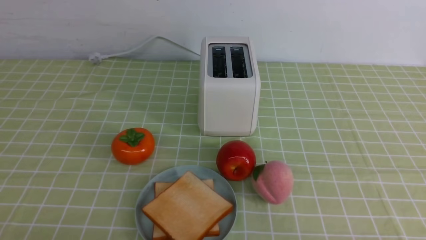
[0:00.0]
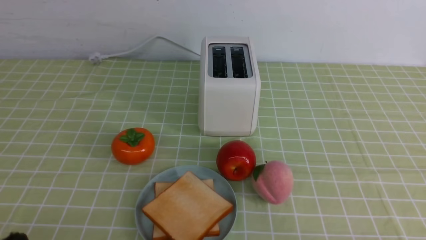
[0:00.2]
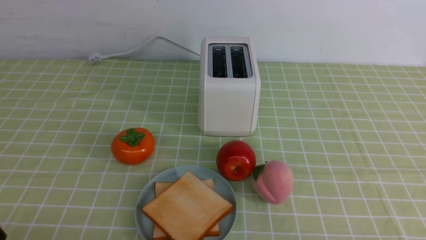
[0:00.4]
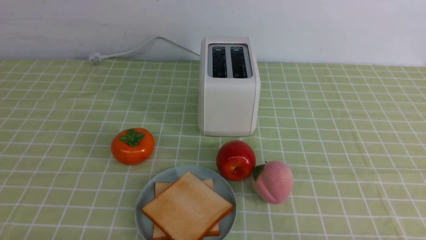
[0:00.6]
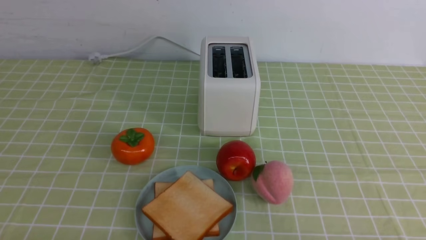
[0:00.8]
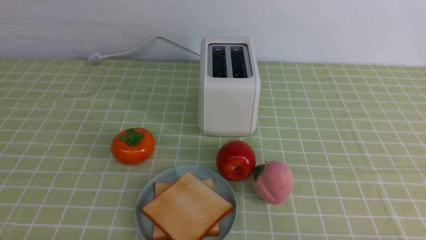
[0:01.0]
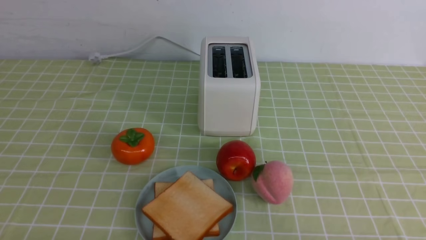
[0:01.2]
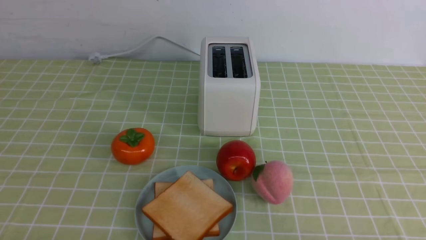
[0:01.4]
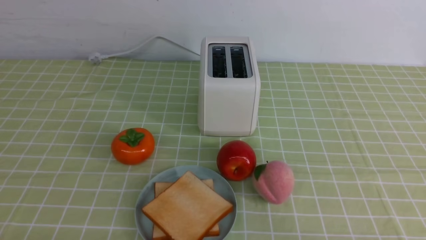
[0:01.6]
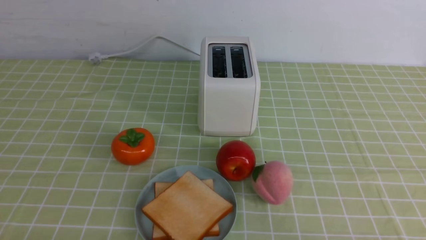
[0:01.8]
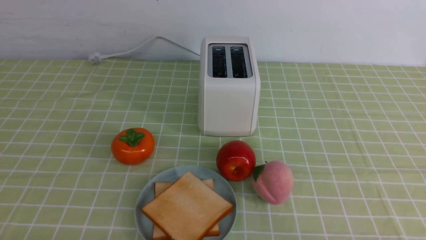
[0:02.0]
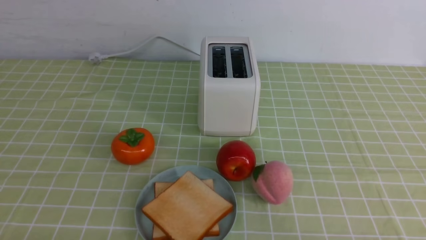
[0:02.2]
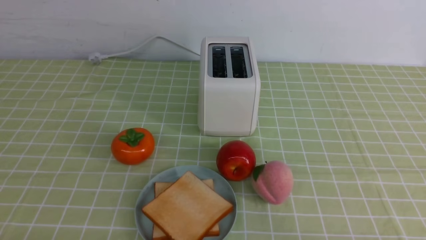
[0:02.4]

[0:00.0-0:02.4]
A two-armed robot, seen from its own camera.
Task of the whole recording: take toasted bread from bread machine on green coffee tablecloth place on plate.
0:01.2 to 0:02.4: The two grippers keep their place.
